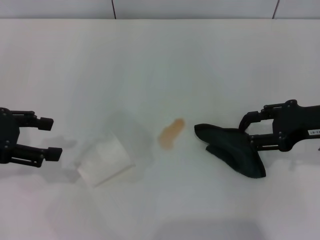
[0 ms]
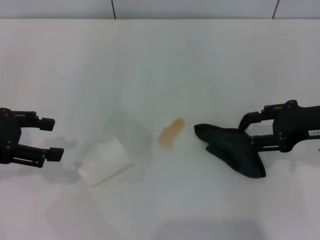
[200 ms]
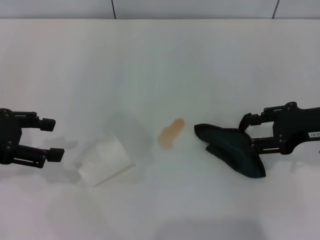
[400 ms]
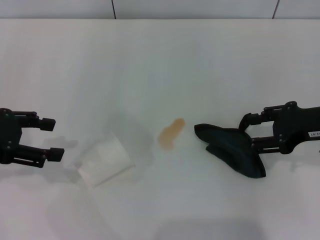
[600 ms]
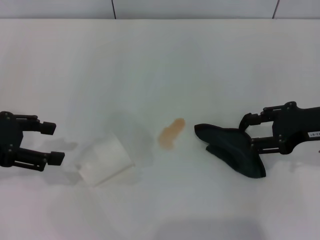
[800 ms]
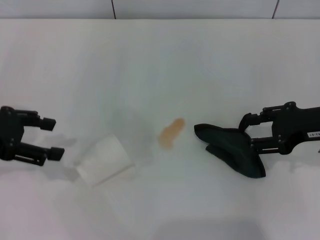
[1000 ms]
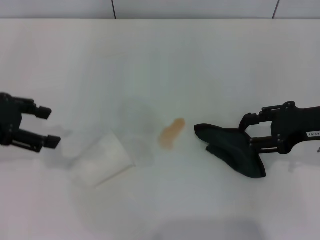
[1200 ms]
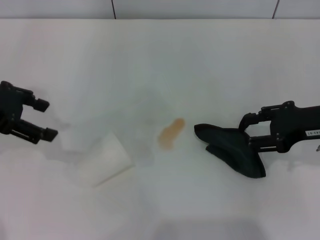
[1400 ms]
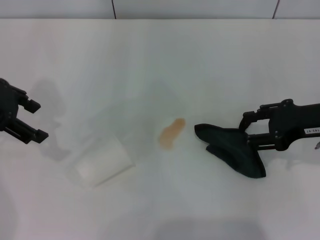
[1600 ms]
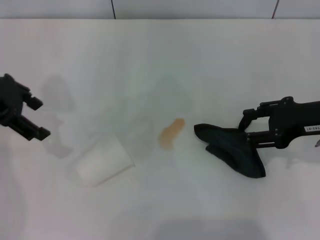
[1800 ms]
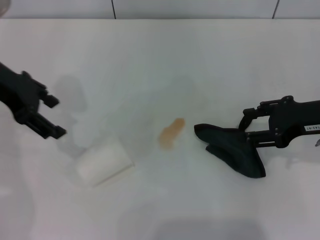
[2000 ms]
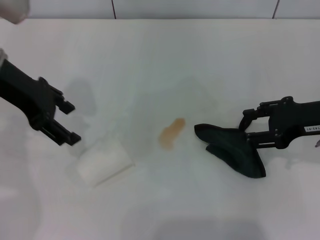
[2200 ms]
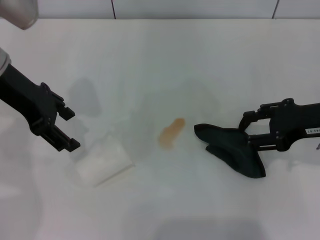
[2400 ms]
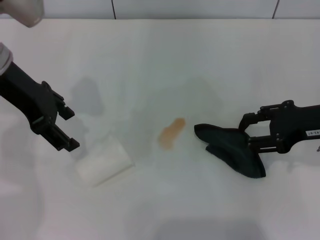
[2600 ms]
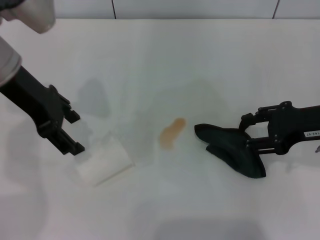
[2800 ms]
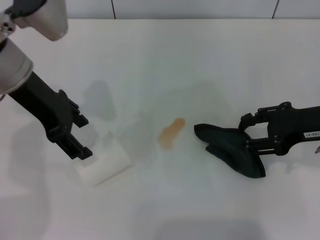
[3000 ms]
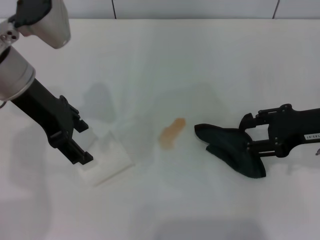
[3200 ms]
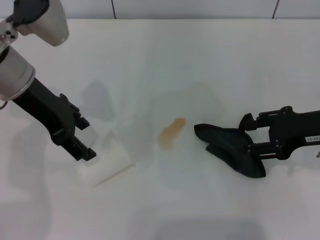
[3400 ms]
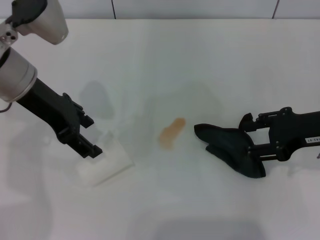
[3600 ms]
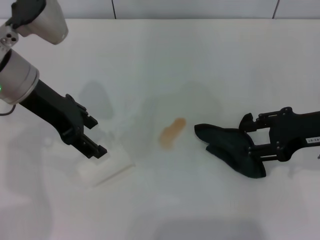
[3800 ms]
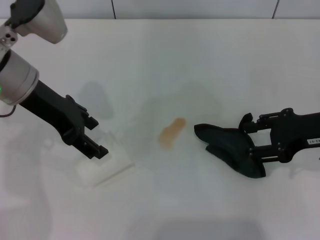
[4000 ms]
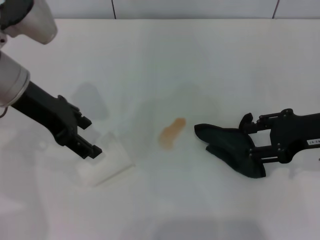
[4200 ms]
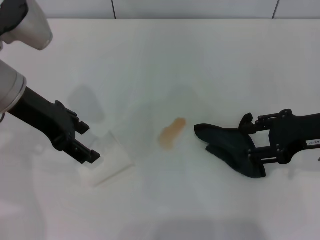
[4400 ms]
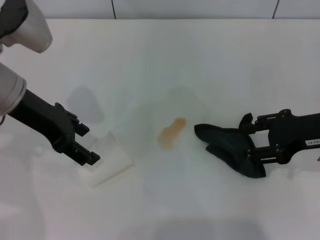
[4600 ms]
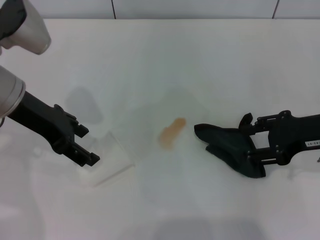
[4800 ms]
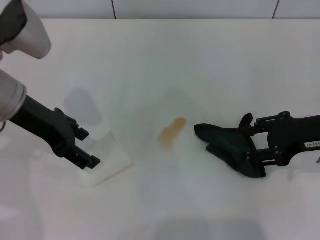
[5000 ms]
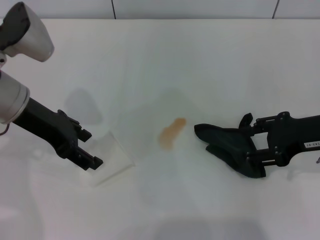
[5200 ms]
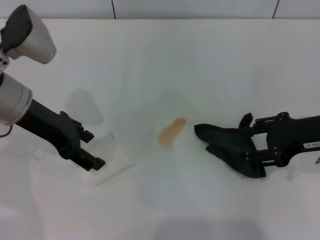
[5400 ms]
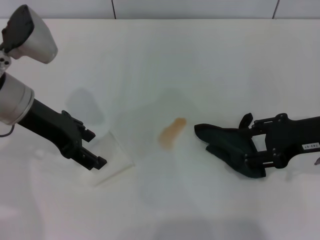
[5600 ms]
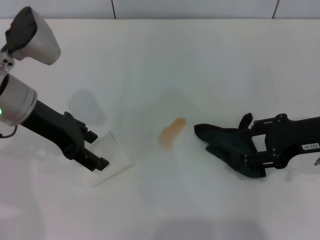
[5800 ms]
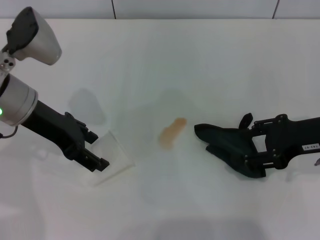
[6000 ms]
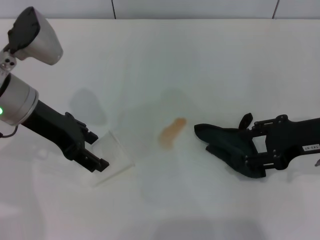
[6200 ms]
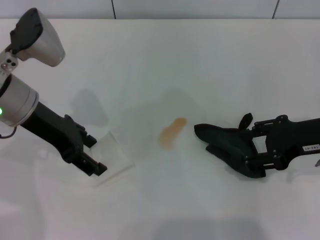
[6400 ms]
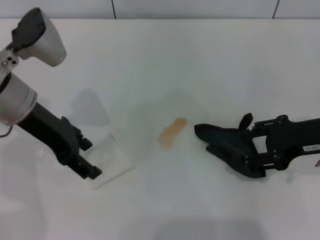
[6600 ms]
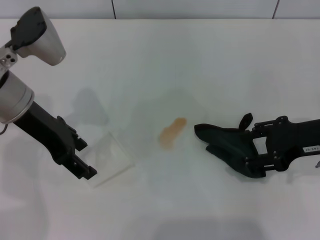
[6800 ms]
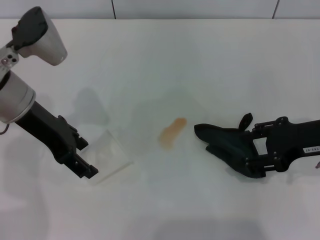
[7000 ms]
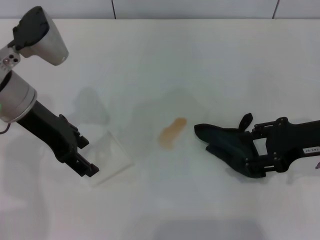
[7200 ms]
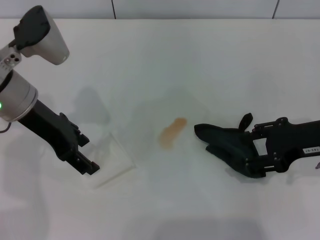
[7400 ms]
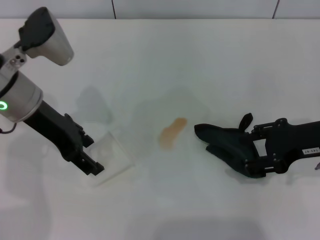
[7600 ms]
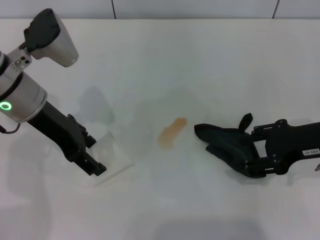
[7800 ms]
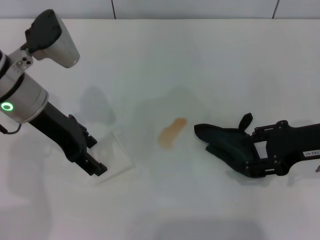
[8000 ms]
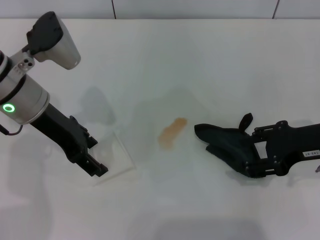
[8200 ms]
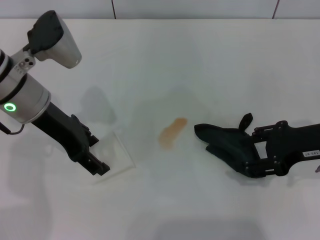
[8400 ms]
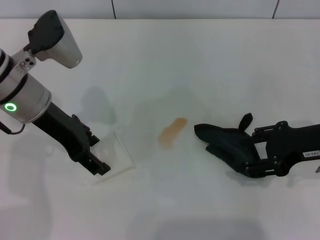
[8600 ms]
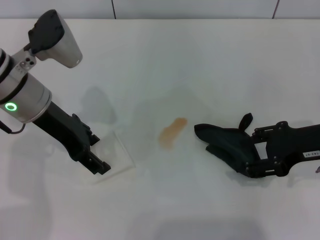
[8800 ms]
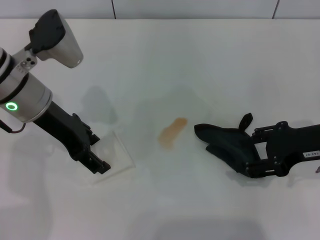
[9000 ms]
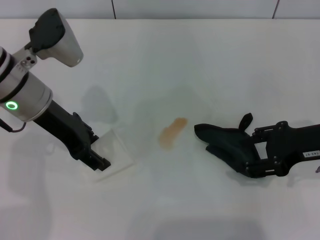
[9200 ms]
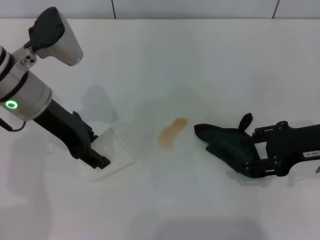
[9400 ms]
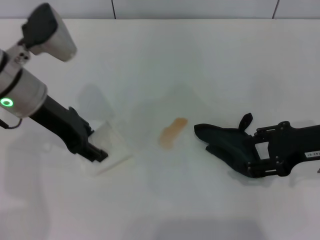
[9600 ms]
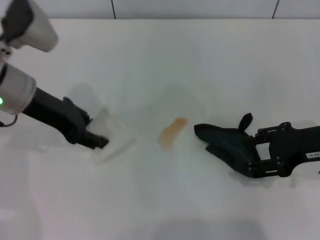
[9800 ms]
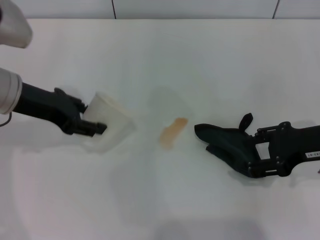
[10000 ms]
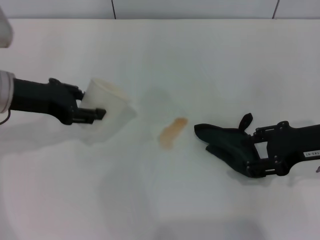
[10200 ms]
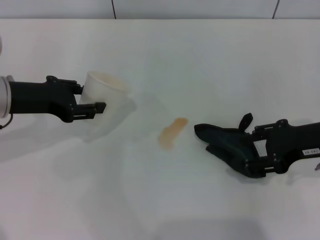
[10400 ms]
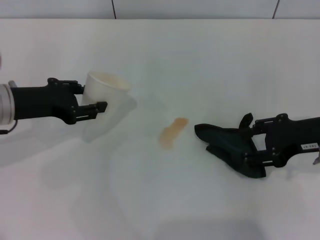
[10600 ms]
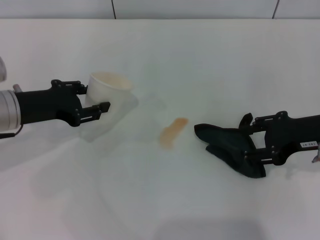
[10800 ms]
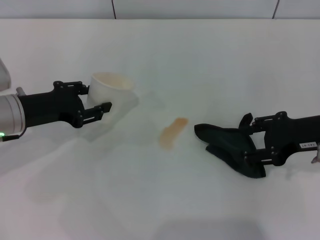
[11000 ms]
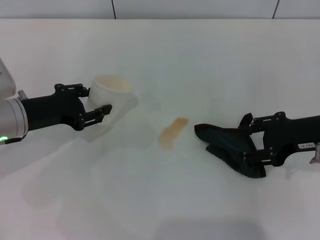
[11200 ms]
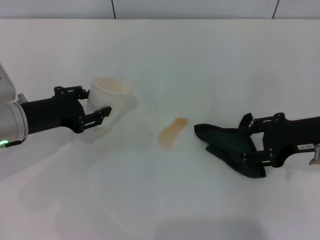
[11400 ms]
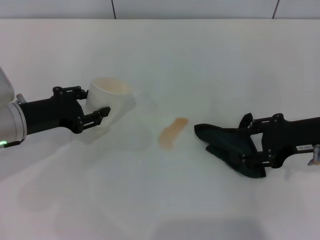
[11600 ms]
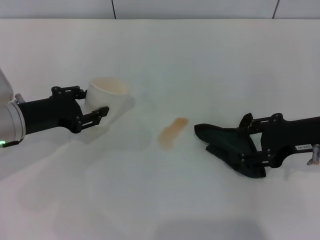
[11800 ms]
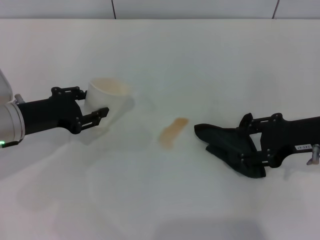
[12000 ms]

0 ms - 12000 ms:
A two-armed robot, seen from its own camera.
Step, 0 ms - 8800 ms: Grasp the paper cup with the left gripper.
0 ms - 1600 ms: The left gripper heads forward, covering about 5 cm.
1600 ms - 3000 ms: The left gripper is displaced to the right by some 10 cm.
3000 ms - 7600 ms: The grippers stay close to where they were, moving slightly.
7600 ms - 9000 ms: Neither gripper changes place.
9000 ms - 10400 ms: The left gripper moves to the left, roughly 5 cm, and closes.
10400 ms - 12000 ms: The left gripper moves downward, roughly 5 cm.

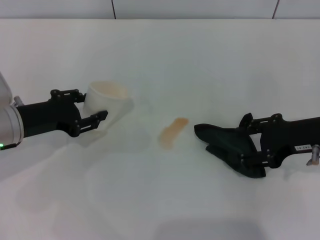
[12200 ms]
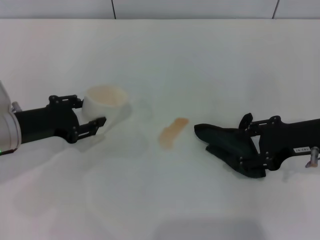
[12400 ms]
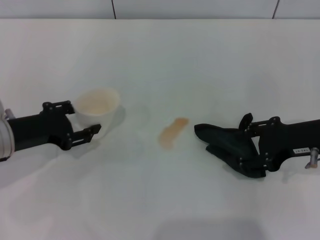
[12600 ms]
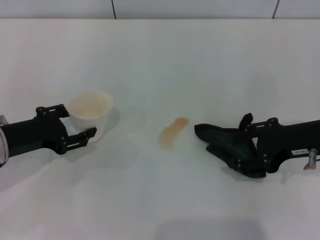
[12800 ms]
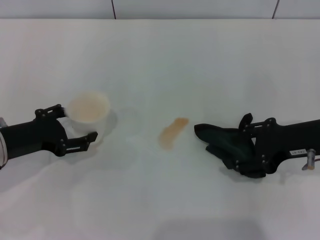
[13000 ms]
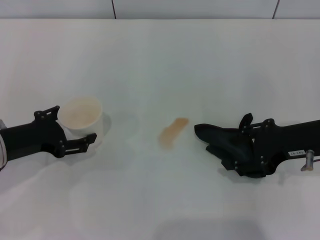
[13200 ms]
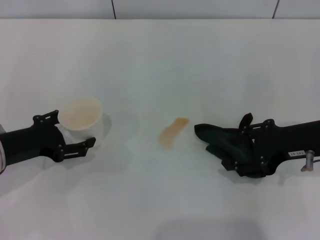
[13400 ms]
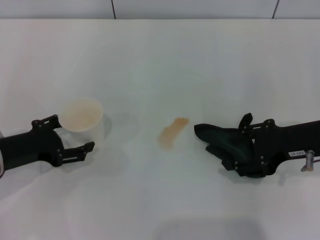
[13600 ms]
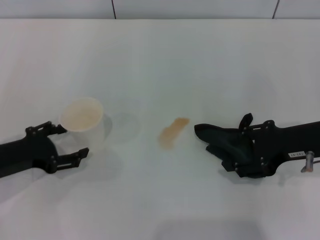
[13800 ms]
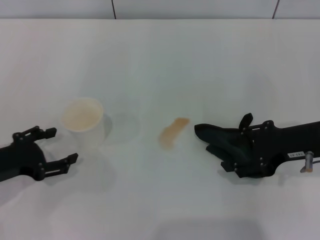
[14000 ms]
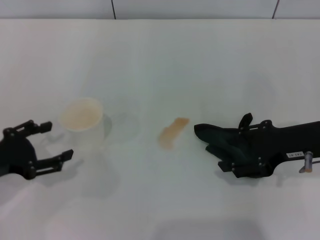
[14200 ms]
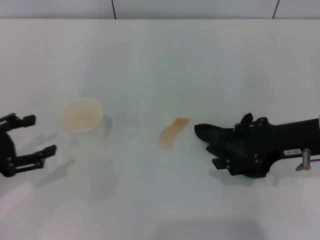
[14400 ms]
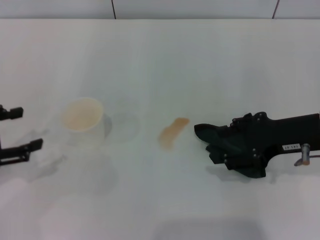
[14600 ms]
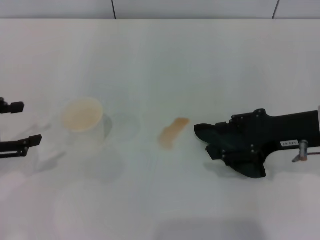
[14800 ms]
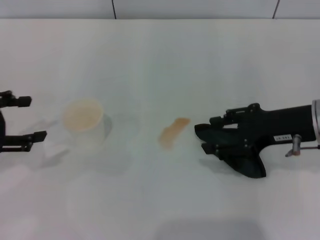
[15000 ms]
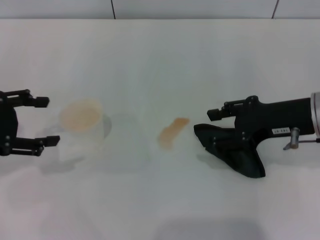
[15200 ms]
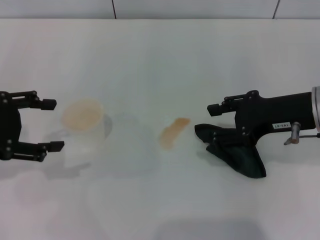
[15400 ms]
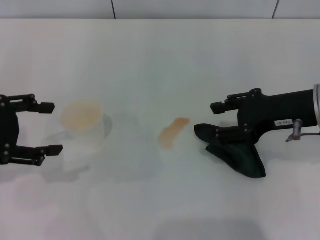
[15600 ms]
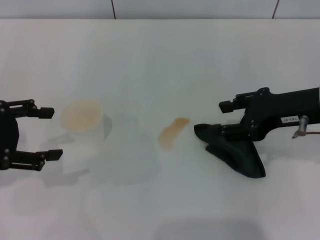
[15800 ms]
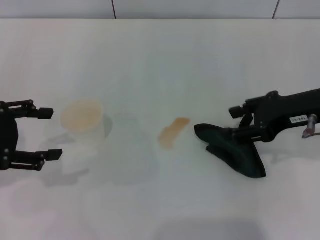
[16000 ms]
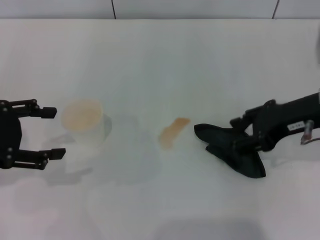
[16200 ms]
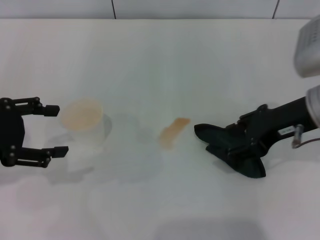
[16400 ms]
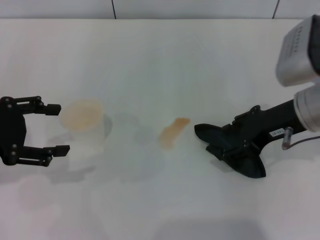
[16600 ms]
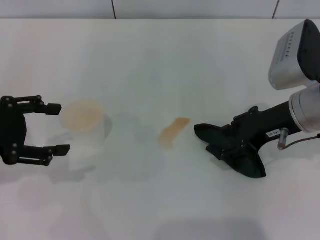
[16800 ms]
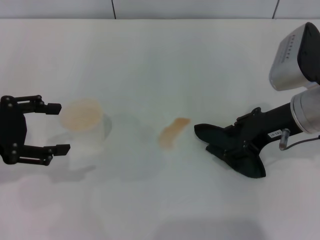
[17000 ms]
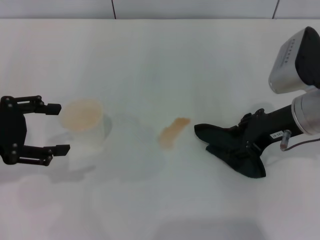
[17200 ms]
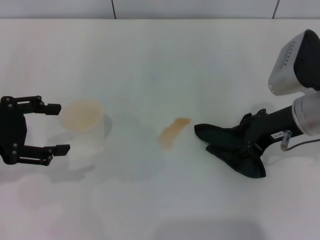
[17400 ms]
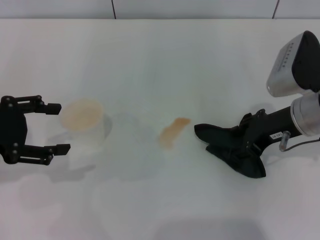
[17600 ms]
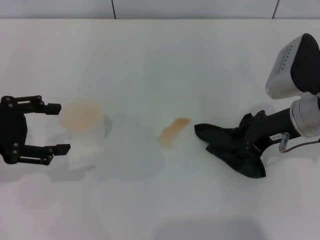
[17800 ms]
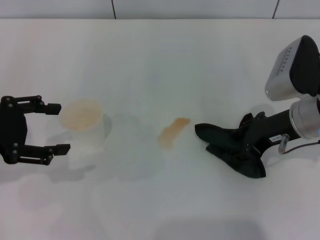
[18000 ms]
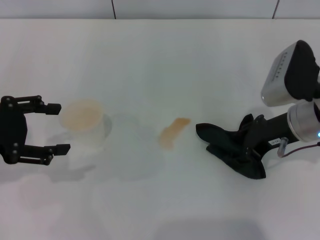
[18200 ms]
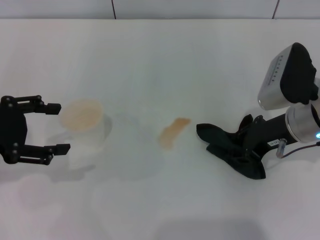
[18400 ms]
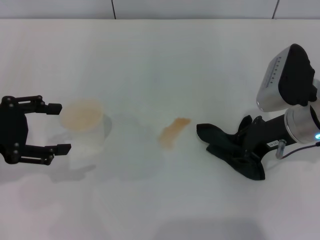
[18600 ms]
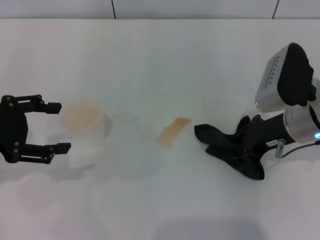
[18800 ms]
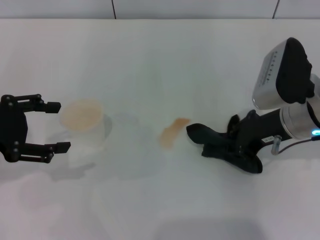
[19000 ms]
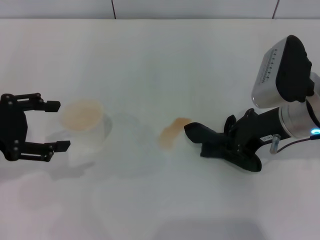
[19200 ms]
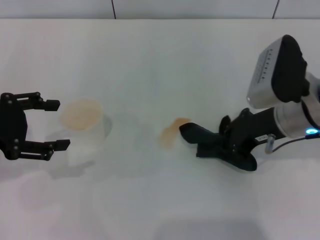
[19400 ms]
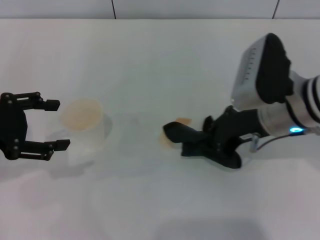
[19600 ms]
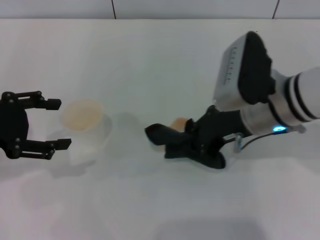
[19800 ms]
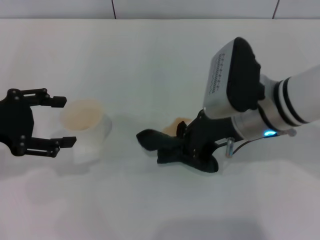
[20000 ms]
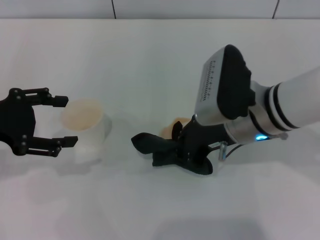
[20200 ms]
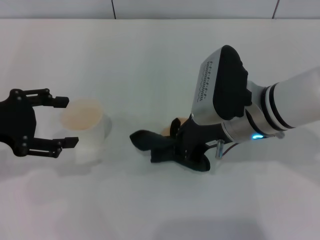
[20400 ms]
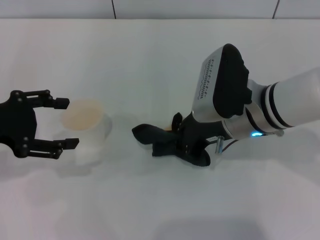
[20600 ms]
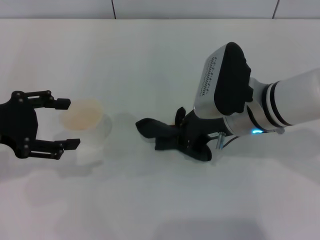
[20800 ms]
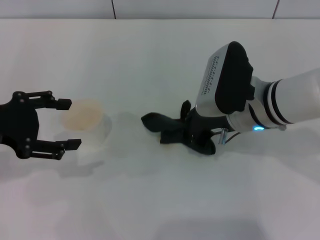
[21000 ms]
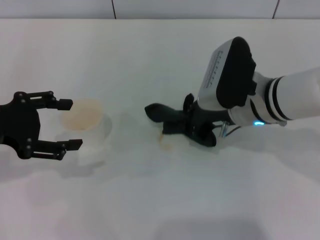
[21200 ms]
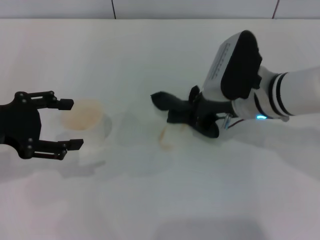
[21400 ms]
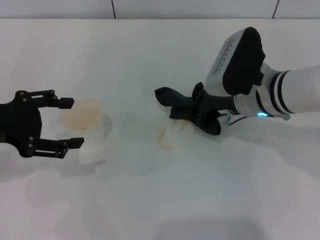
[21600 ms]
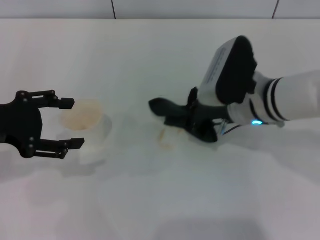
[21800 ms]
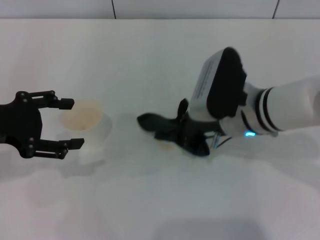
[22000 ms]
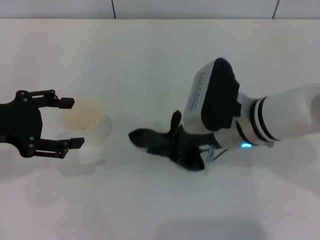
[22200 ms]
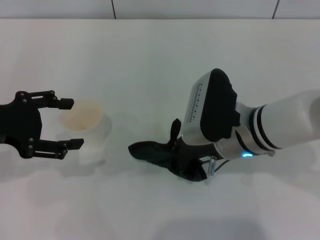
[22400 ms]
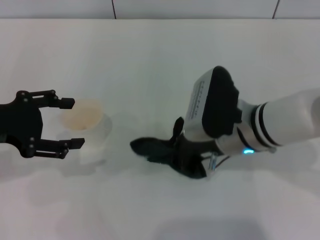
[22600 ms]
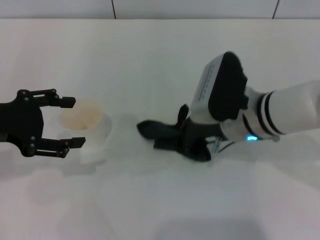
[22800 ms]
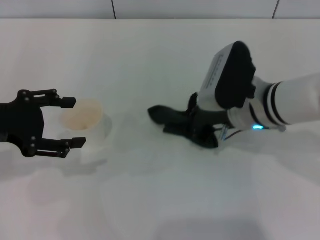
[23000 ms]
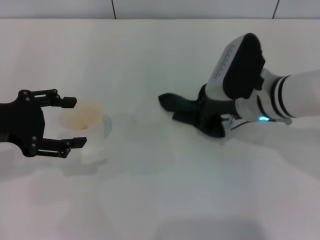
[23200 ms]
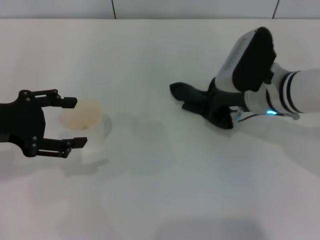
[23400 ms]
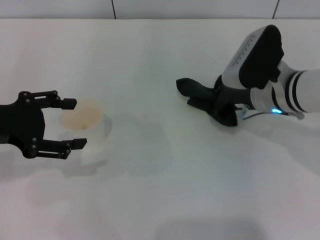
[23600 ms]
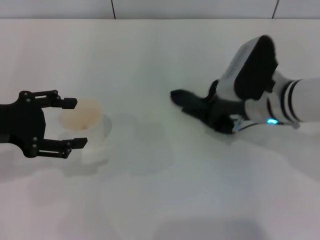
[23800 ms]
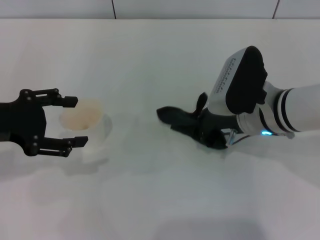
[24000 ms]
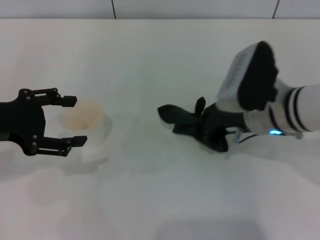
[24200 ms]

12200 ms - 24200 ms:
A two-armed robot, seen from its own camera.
Step, 14200 ms - 18600 ms: Grasp the rag with the right gripper.
12200 ms - 13800 ms: The left gripper goes about 5 cm backward, and opens its fingers.
13800 ms - 15200 ms: The left gripper moves upward, approximately 10 cm.
16600 ms - 18200 ms: There are only small adjustments of the grippers.
18200 ms - 19800 ms: The right gripper is displaced to the left by roughly 5 cm, and closes.
19800 ms - 22600 ms: The grippers stay close to where they were, moving slightly.
